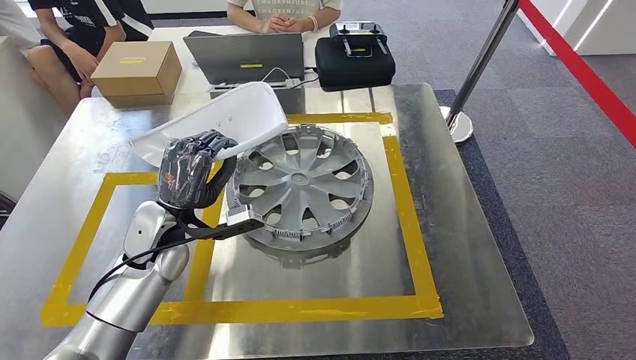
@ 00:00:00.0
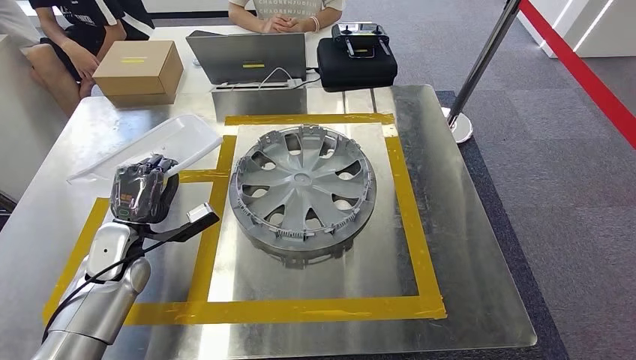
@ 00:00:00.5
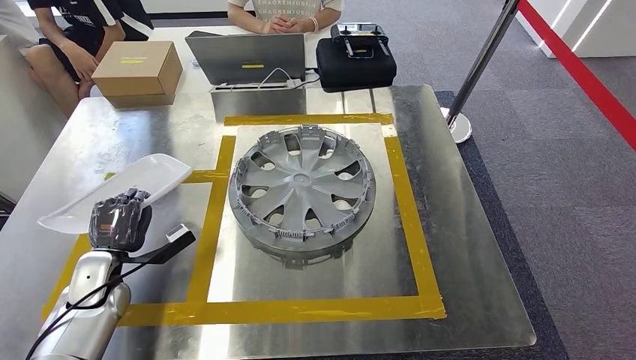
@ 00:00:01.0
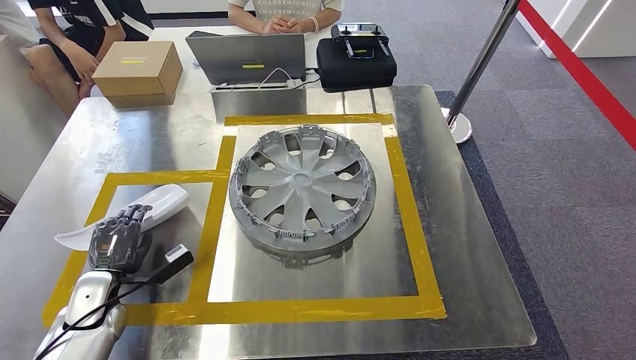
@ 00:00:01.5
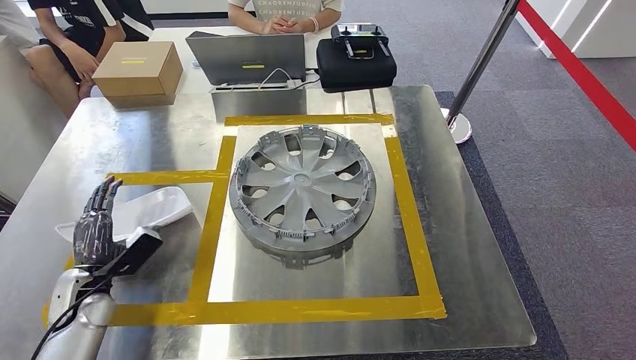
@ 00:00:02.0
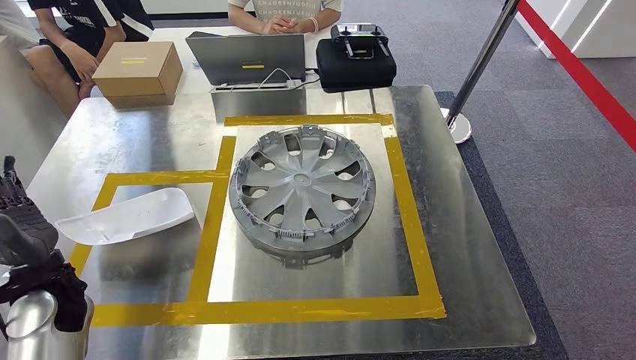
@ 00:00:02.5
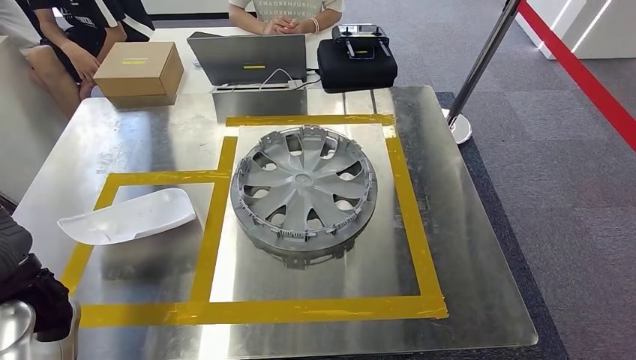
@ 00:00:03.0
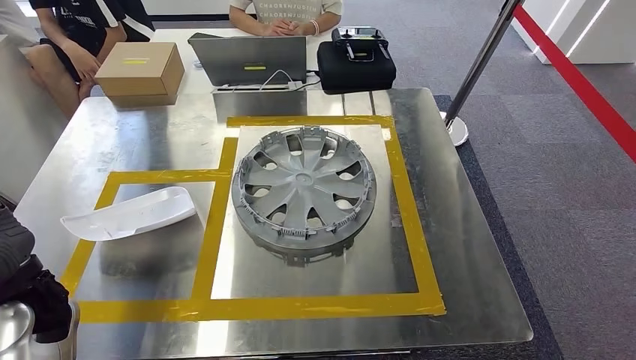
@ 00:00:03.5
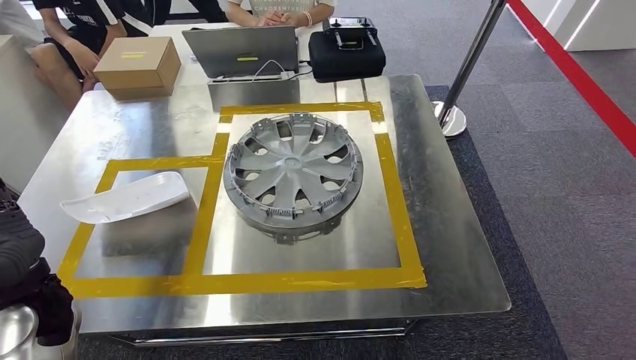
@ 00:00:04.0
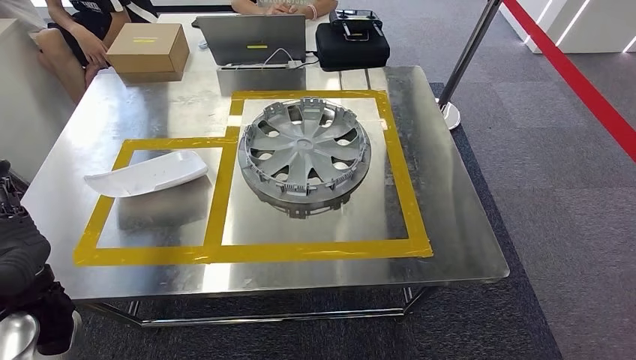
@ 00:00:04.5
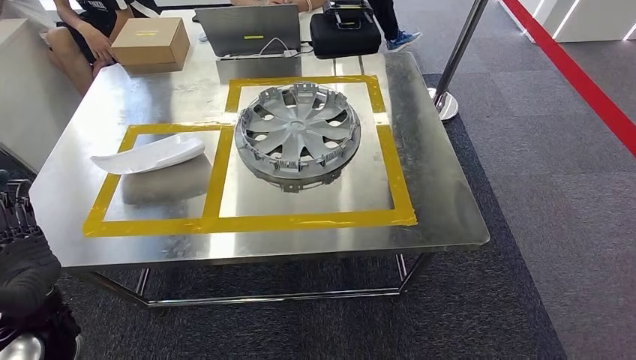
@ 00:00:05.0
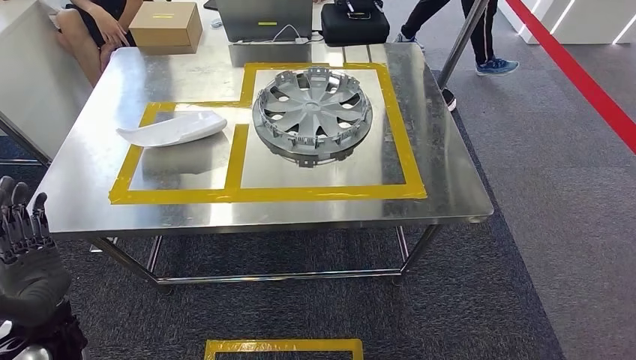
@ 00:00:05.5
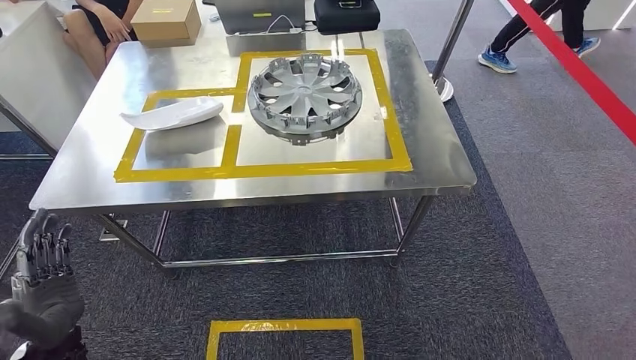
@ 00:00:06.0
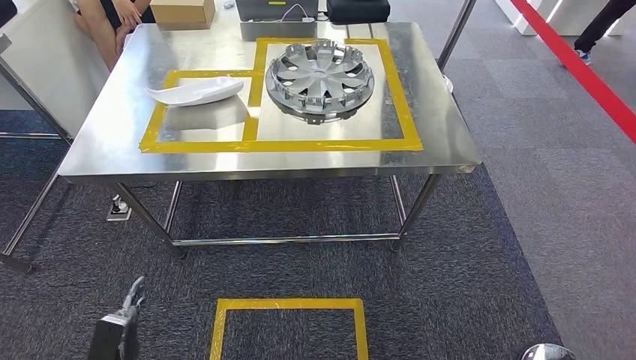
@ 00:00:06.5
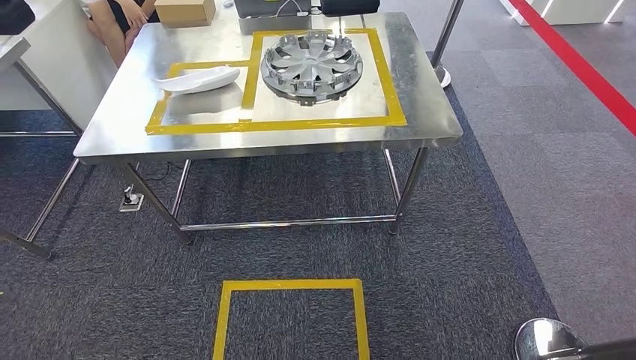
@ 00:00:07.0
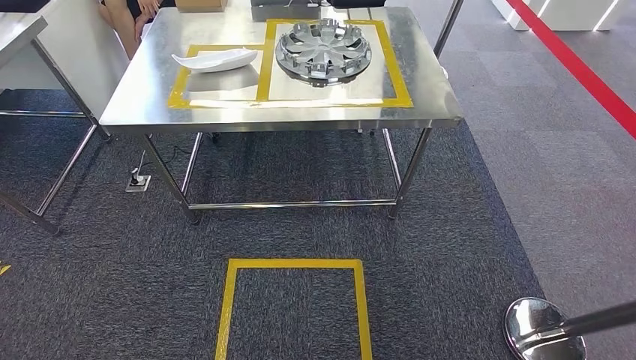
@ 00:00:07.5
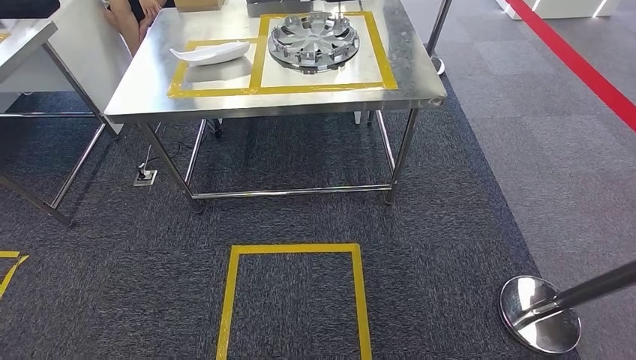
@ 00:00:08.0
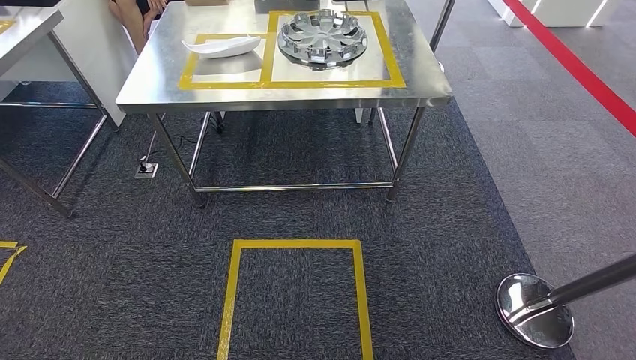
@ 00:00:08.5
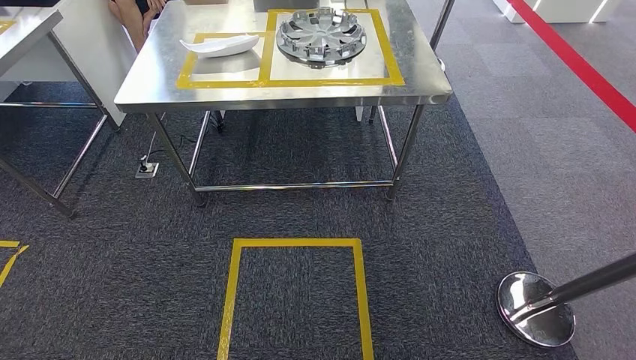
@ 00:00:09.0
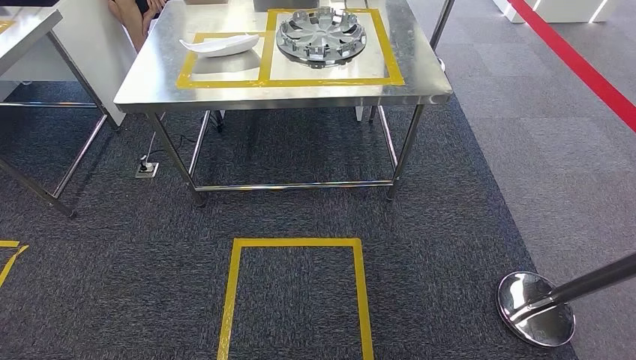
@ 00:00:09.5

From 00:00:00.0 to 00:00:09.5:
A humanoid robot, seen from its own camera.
Step, from 00:00:00.0 to 00:00:03.0: Insert the small component into the corresponding slot on the workbench.
Step, from 00:00:03.5 to 00:00:09.5: Return to the initial position at the workbench.
From 00:00:00.0 to 00:00:02.0: The left hand heads to the left and downward, covering approximately 20 cm.

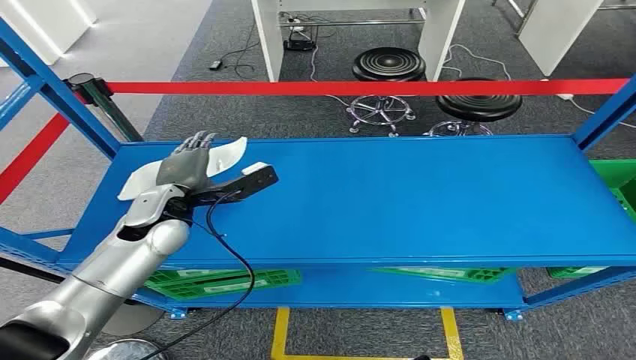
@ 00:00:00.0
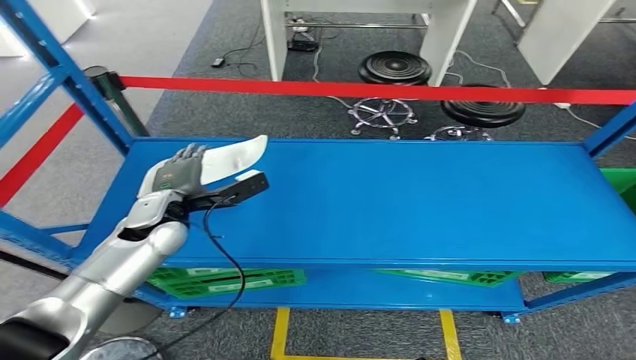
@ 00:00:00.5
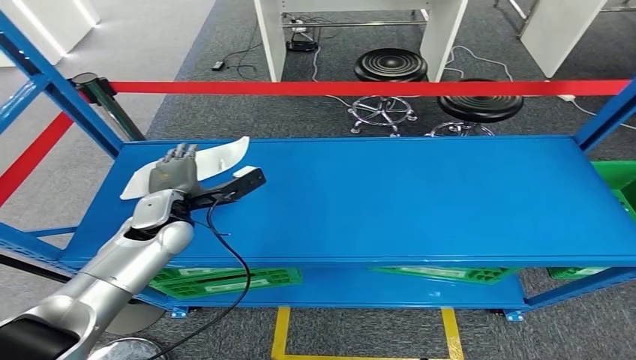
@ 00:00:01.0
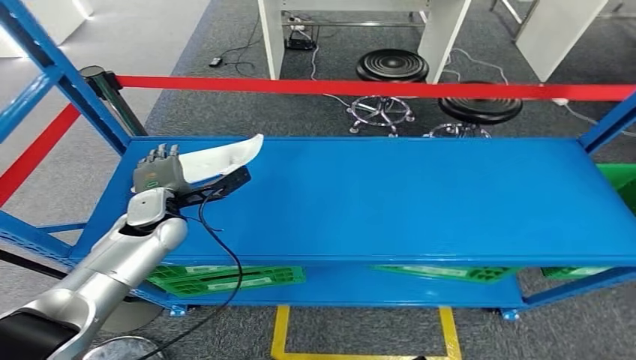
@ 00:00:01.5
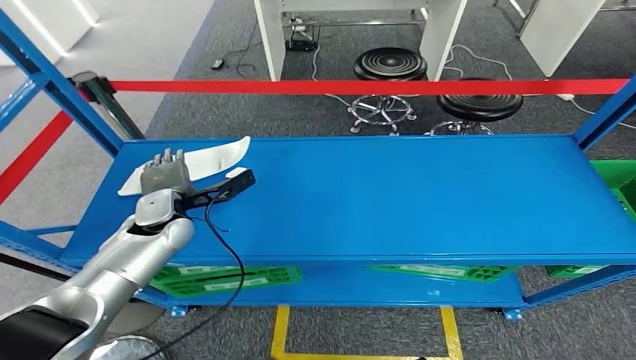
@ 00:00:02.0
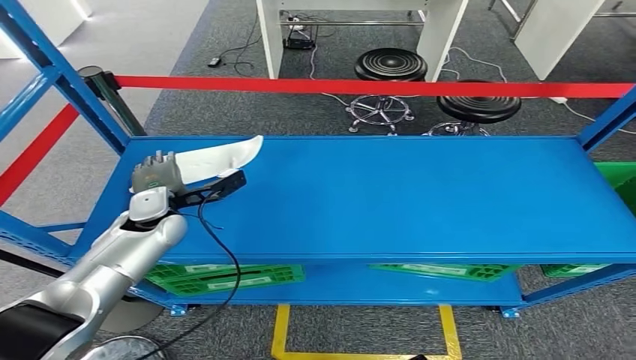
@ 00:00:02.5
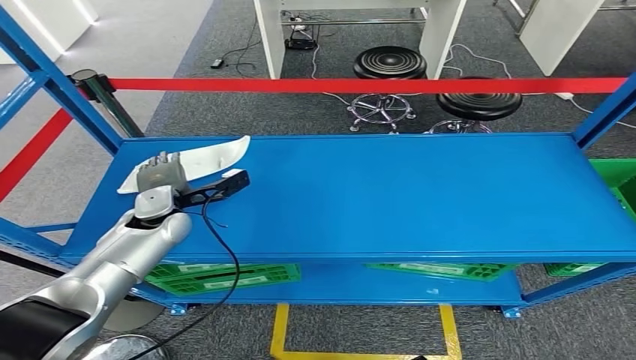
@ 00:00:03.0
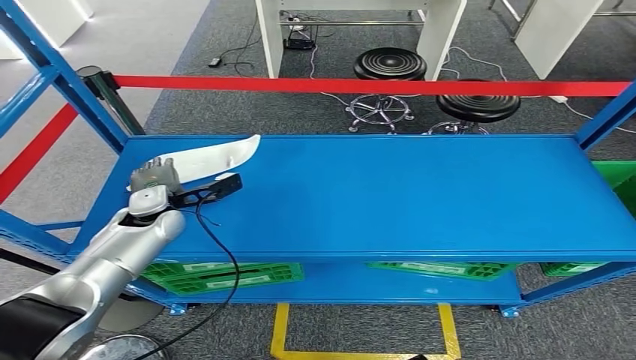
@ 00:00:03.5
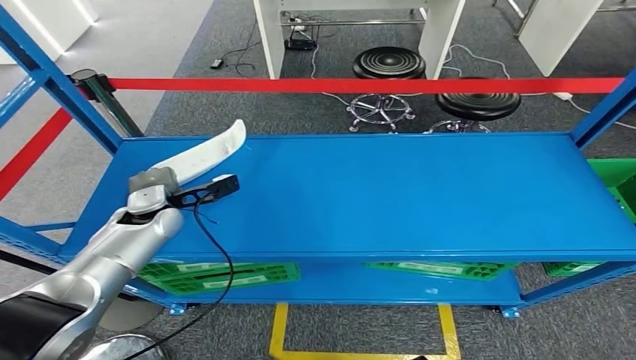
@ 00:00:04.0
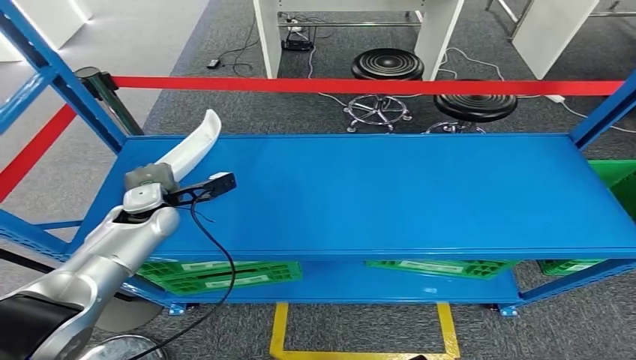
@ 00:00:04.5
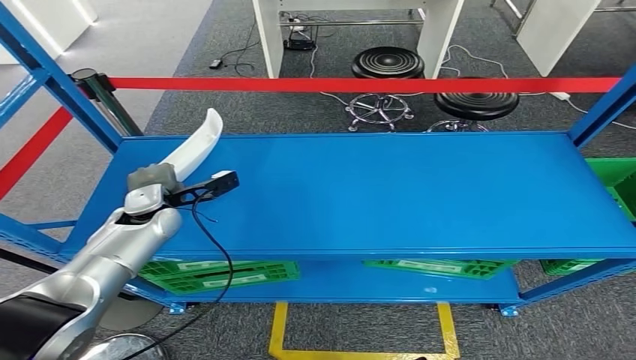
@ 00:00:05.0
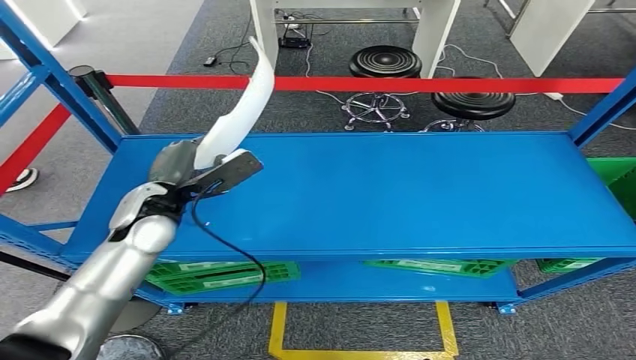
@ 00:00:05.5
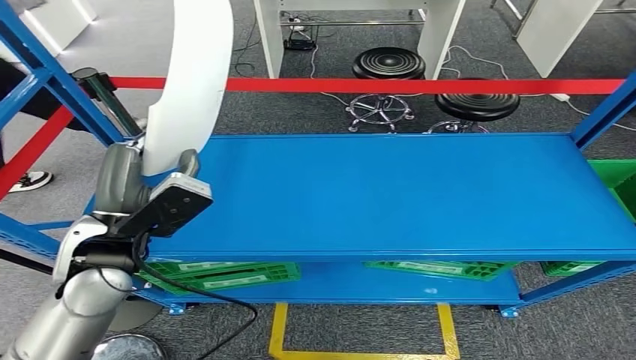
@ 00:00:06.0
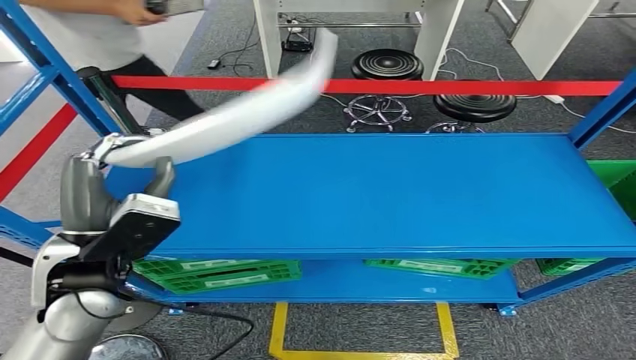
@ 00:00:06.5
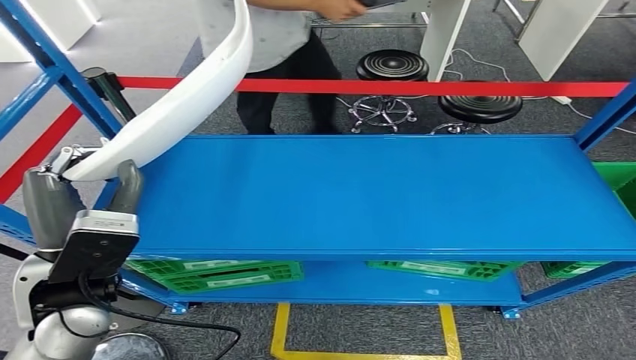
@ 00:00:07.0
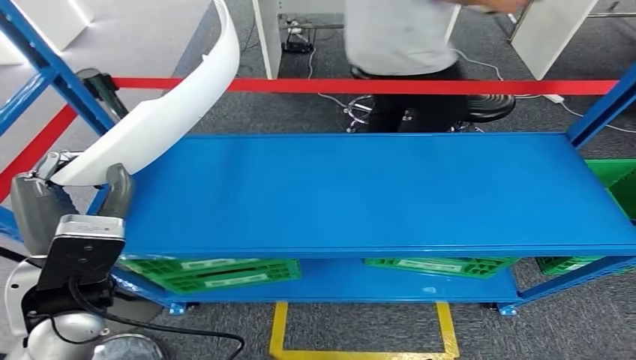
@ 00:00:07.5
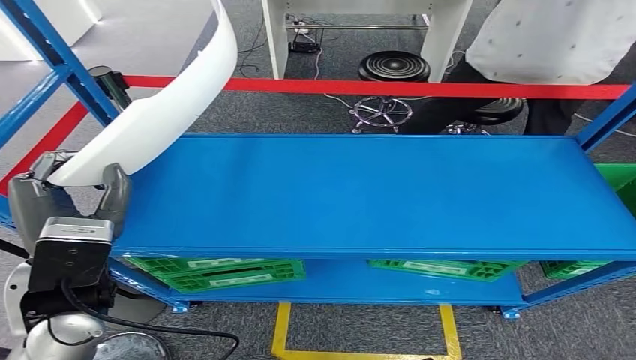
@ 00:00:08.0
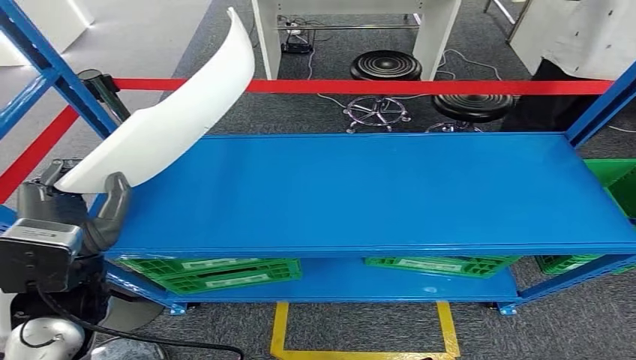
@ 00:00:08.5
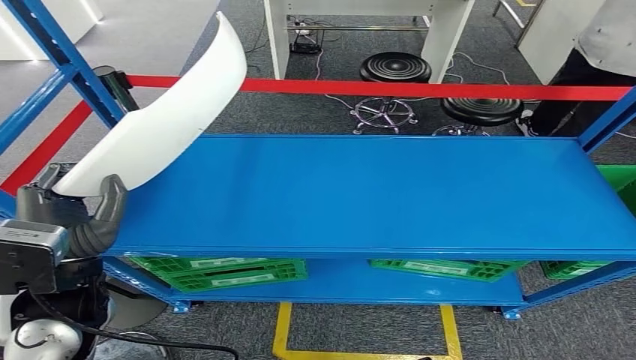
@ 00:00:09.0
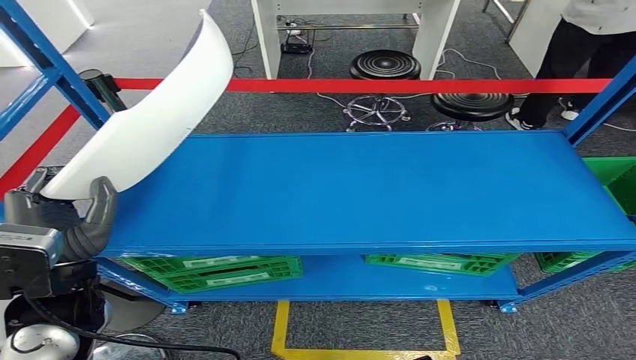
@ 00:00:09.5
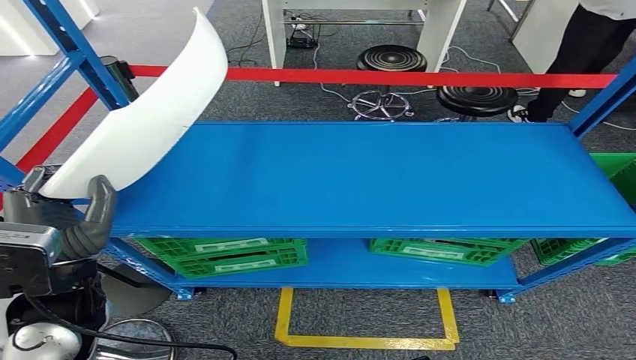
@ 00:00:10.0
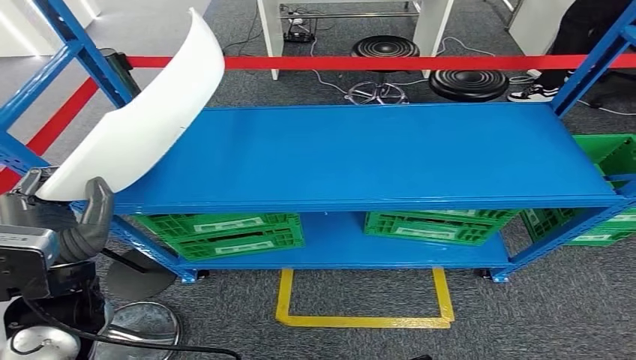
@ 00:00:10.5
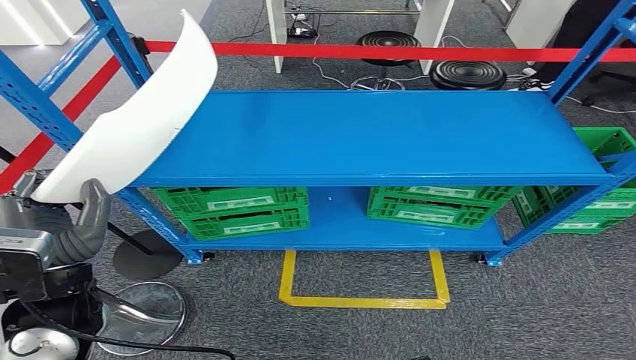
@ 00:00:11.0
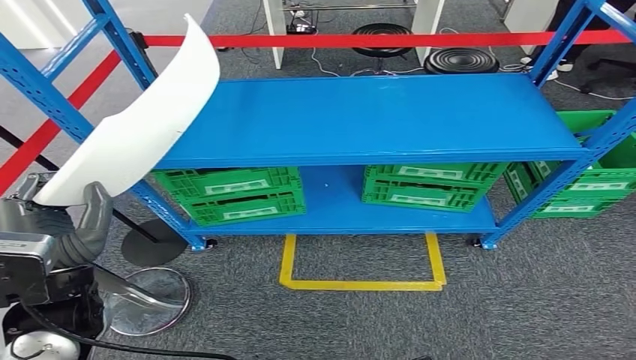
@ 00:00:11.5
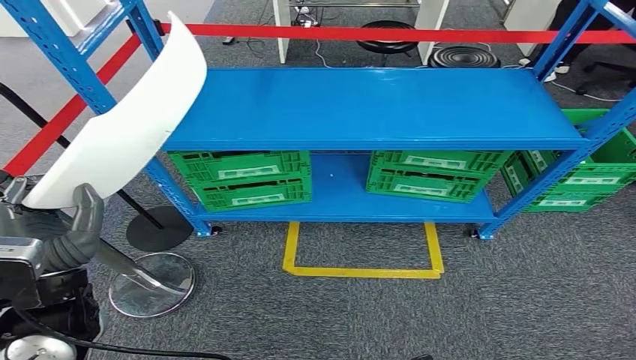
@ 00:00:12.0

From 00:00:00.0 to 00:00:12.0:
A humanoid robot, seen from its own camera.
Step, from 00:00:00.0 to 00:00:06.5: Pick up the small component from the shelf.
From 00:00:02.0 to 00:00:04.0: The hands stay close to where they were, moving slightly.
From 00:00:04.0 to 00:00:06.0: The left hand heads upward, backward and to the right, covering approximately 15 cm.
